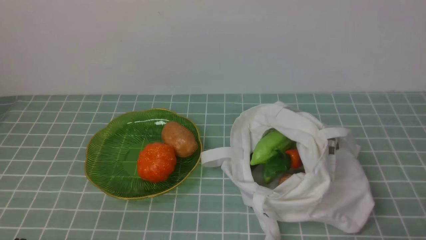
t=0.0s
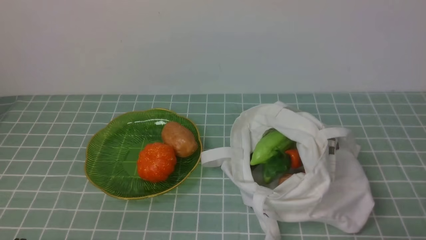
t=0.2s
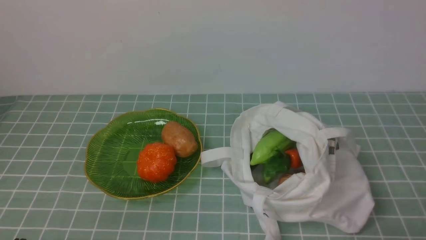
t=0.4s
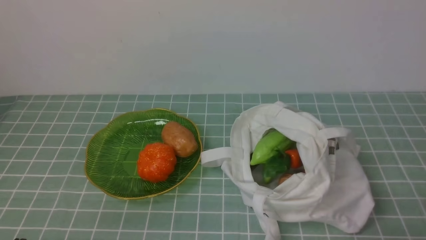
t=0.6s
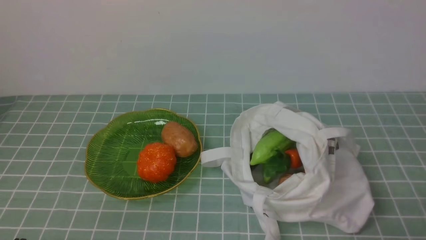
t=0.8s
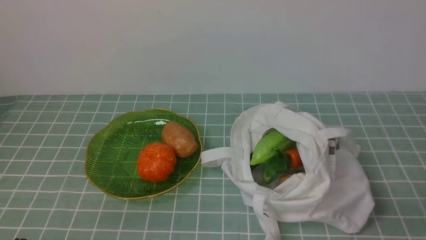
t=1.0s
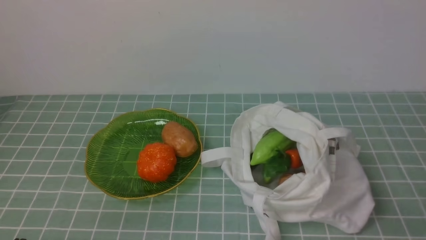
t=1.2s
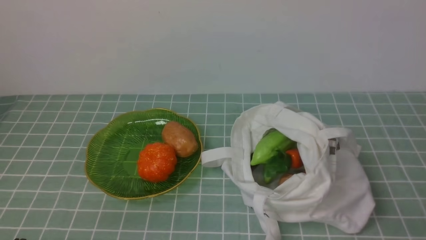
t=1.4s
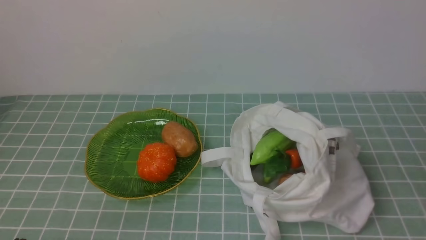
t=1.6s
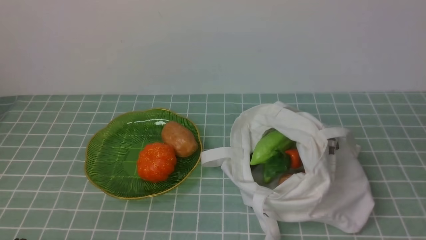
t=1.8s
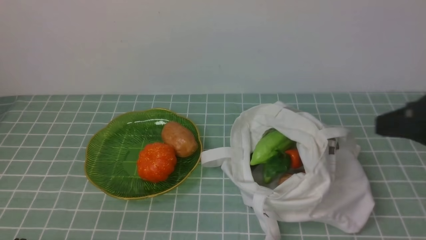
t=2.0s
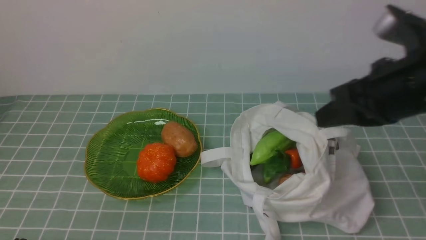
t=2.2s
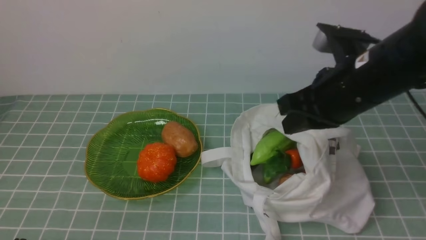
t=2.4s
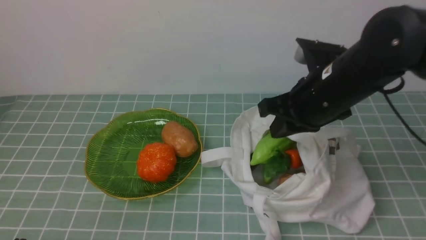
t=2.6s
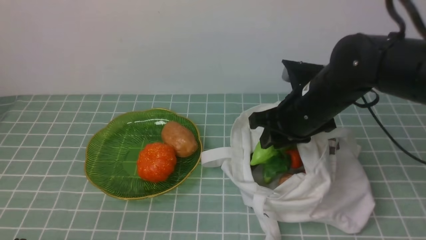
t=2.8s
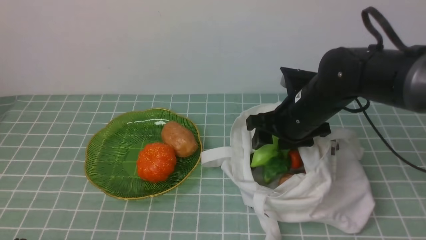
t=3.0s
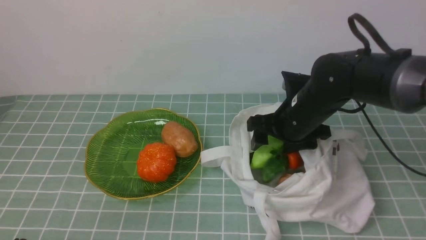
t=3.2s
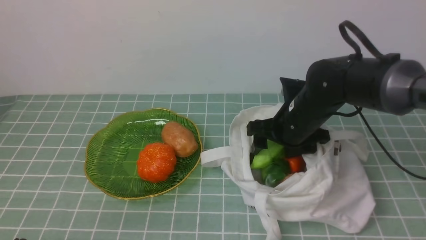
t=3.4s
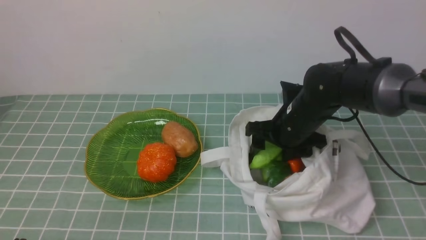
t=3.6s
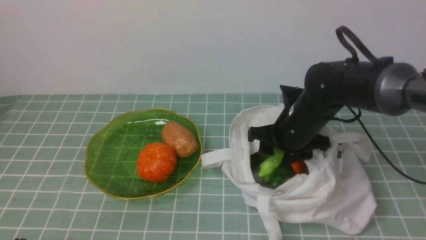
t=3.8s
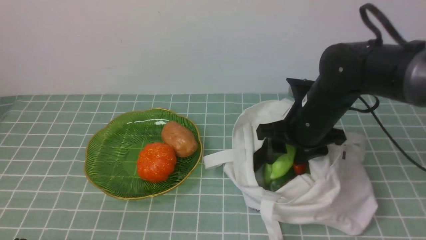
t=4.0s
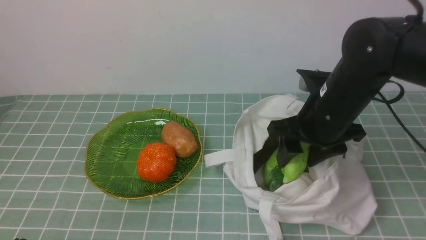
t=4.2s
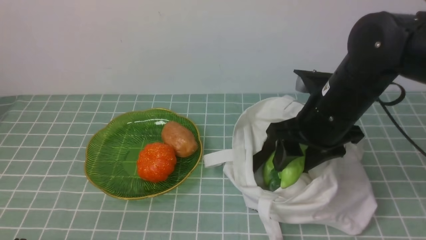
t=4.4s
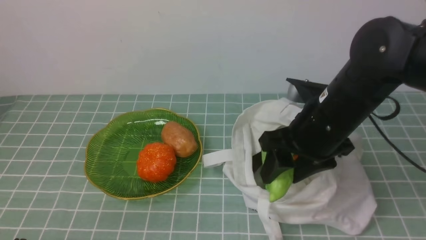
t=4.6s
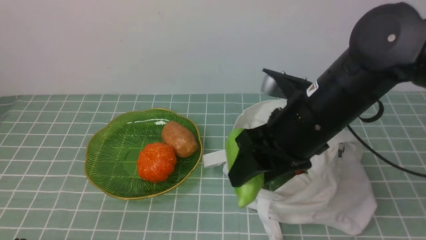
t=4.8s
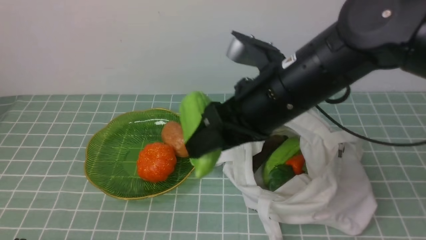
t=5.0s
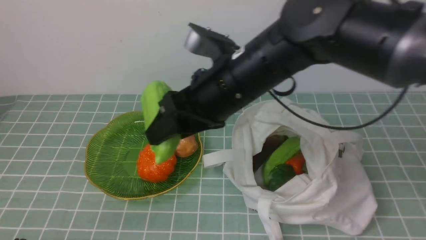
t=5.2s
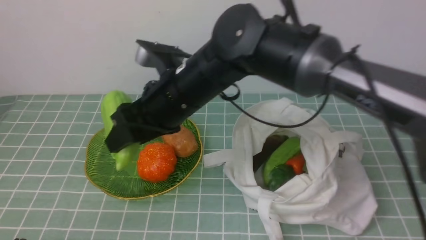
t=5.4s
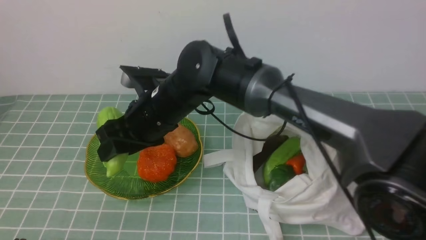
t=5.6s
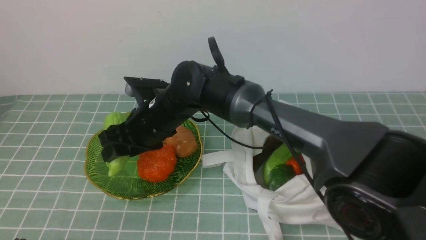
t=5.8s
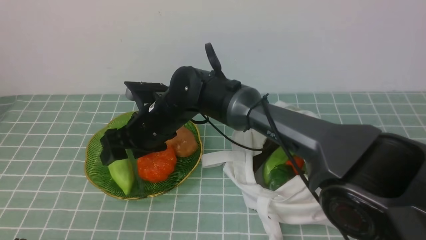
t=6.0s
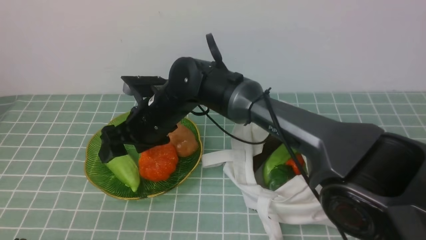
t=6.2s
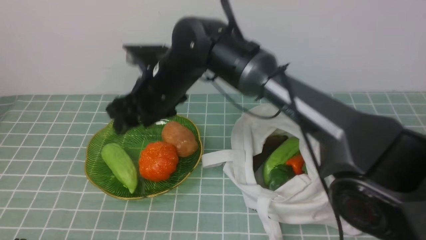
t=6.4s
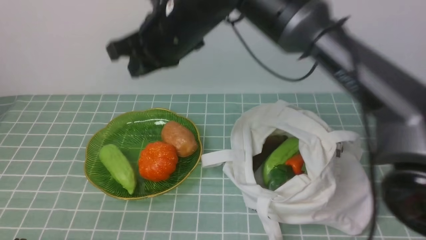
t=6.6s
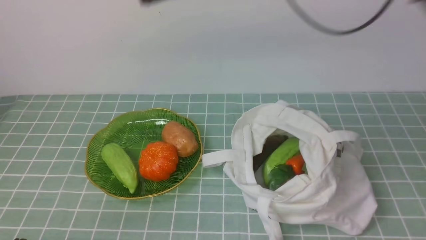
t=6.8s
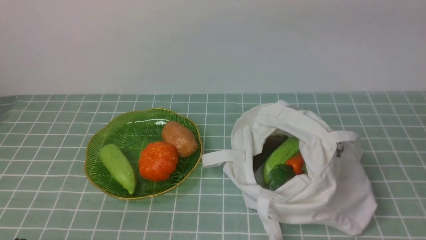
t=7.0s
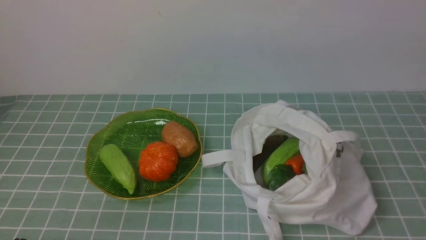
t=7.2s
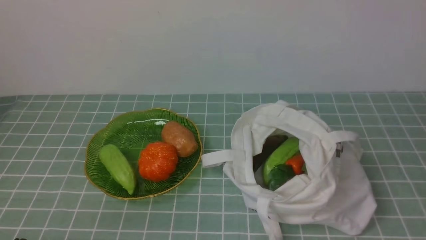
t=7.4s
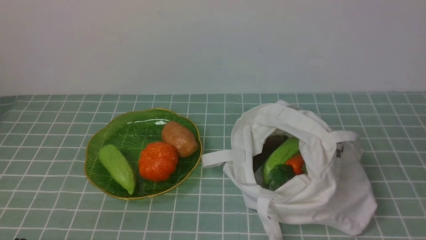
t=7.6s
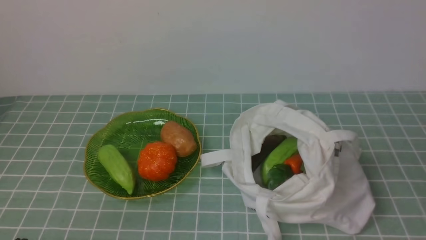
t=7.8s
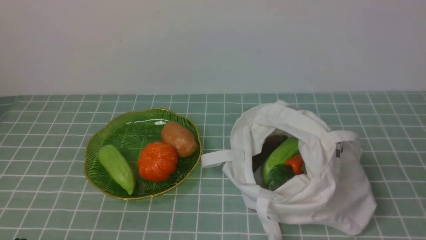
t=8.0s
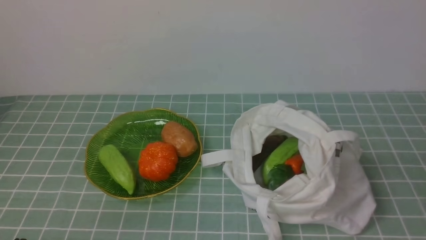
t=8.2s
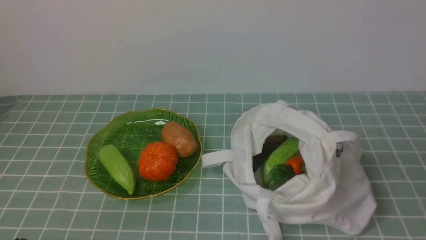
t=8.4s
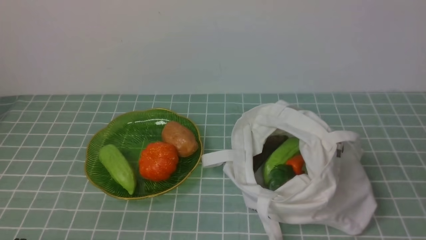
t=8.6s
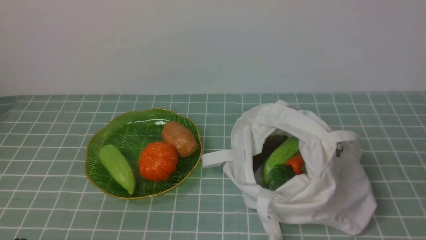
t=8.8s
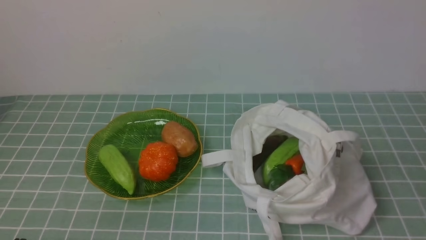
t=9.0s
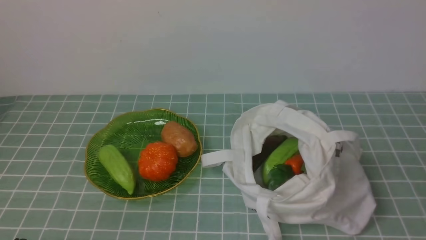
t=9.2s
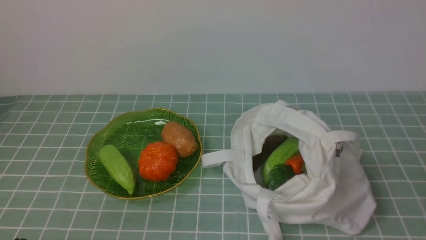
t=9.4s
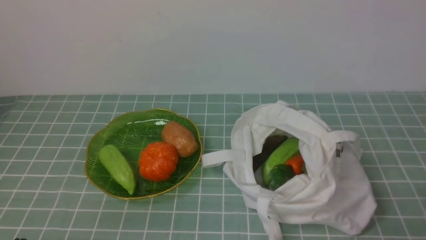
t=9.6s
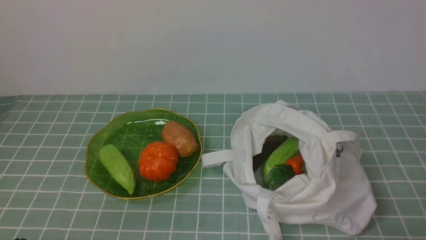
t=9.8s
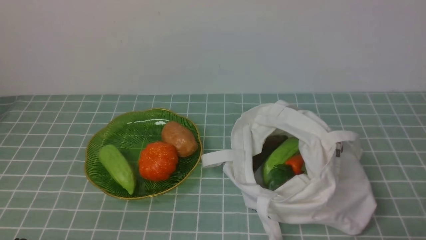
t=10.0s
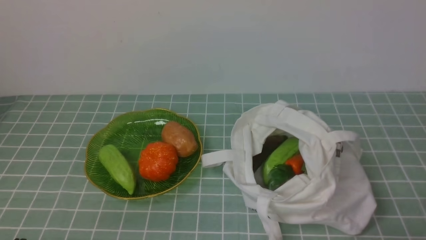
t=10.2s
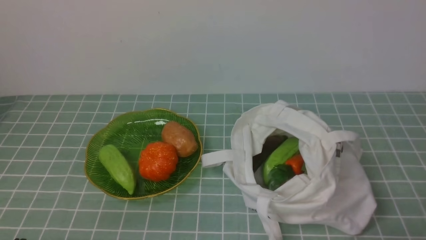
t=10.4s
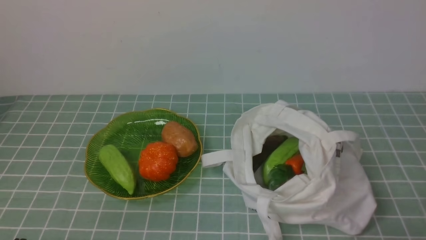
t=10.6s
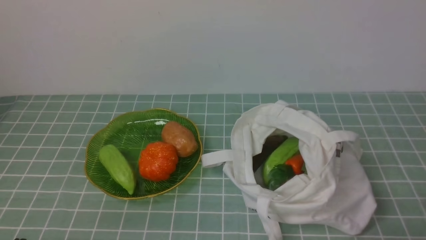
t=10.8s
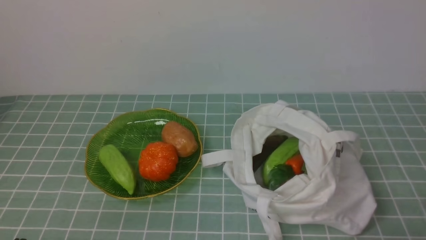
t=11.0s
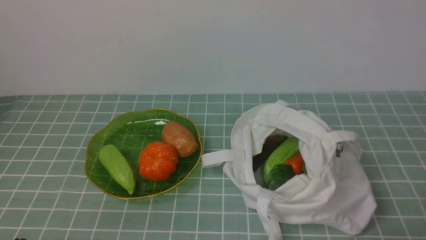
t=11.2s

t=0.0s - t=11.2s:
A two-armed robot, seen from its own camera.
Task of the whole recording: take vegetables from cloth bag on blue coffee tablecloth place on plate.
Step, t=0.0s - t=3.8s: Grasp the bitter melon with right gripper.
Step, t=4.0s - t=6.2s: Place the bitter melon on the plate with right gripper.
t=1.6s - t=3.2s: The right gripper is displaced forward and to the left by about 35 cm, and opens up.
t=3.2s - t=4.8s: The right gripper travels upward and backward by about 15 cm.
t=4.8s - t=6.4s: The right gripper moves to the left and forward, approximately 20 cm.
t=6.4s - t=8.0s: The right gripper goes about 50 cm to the right and backward, and closes up.

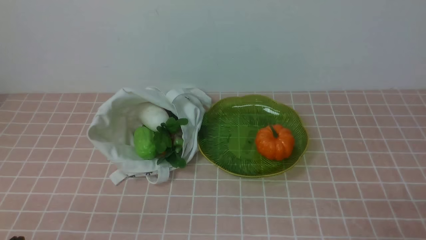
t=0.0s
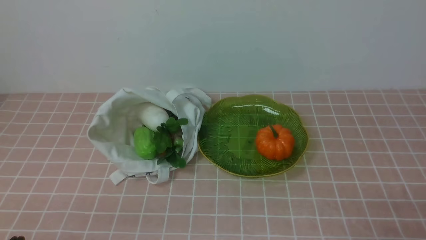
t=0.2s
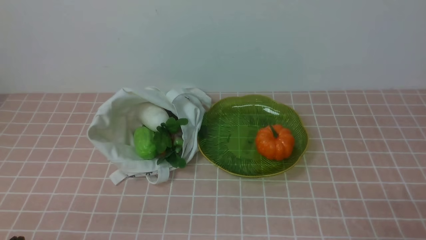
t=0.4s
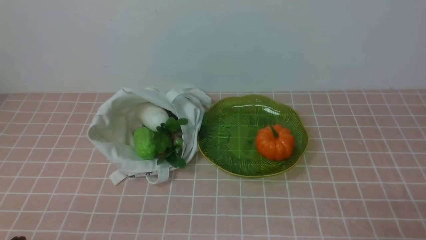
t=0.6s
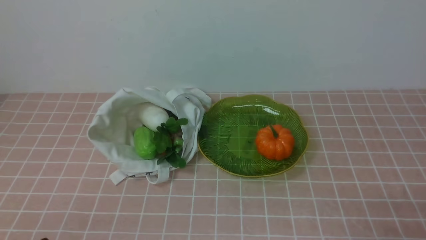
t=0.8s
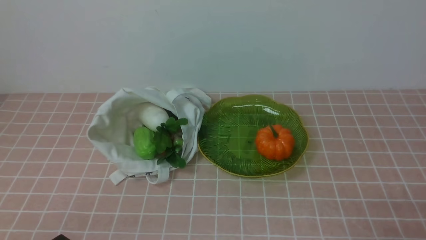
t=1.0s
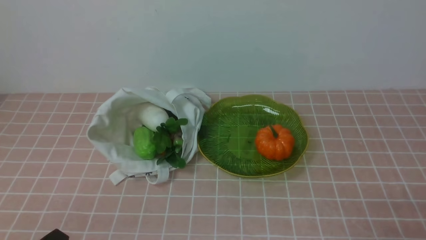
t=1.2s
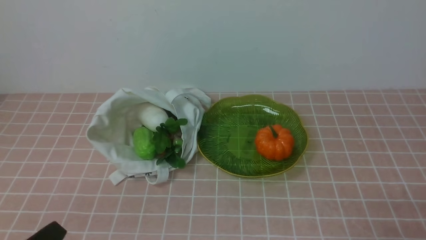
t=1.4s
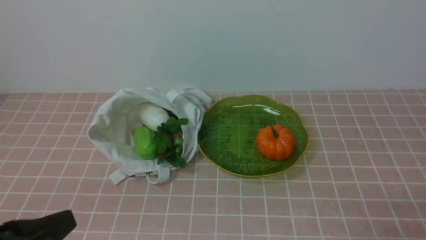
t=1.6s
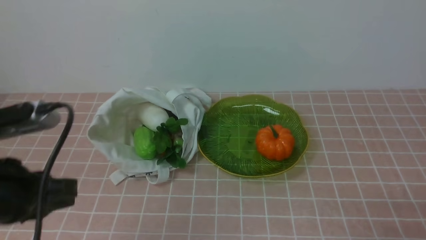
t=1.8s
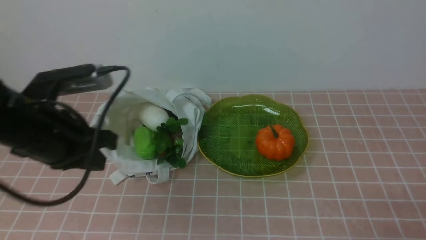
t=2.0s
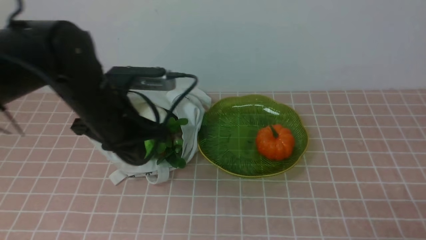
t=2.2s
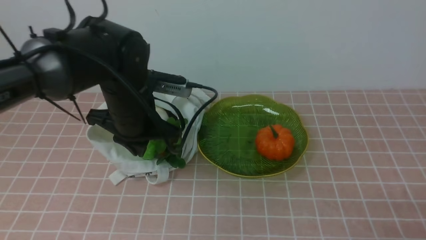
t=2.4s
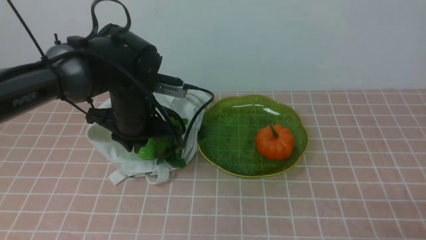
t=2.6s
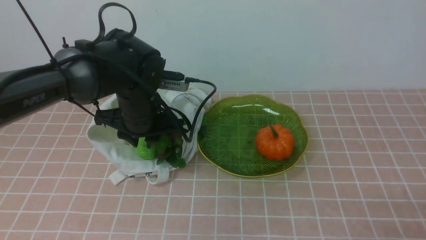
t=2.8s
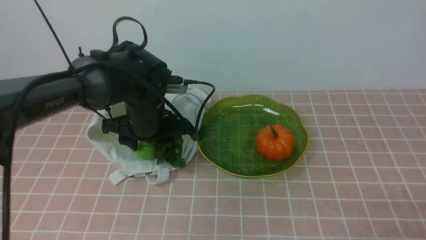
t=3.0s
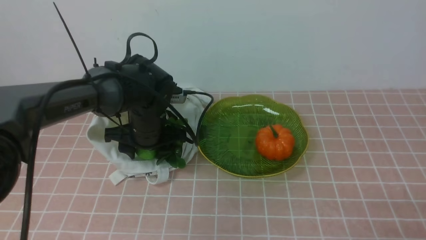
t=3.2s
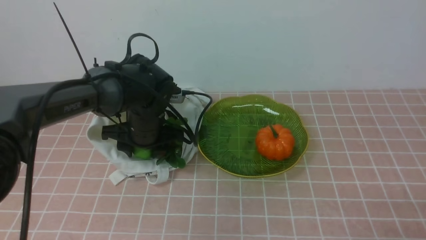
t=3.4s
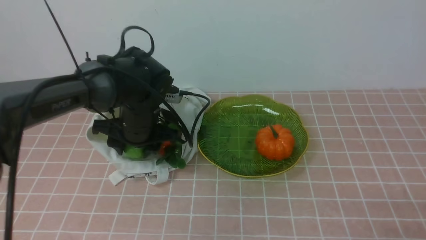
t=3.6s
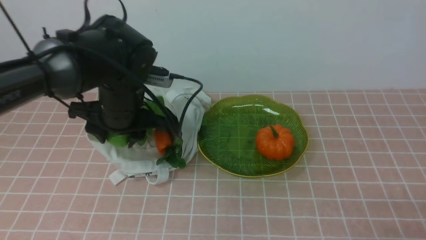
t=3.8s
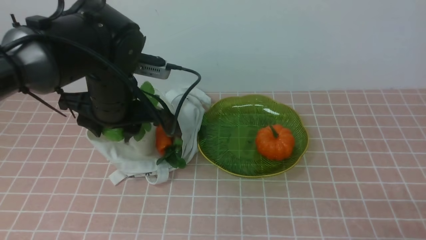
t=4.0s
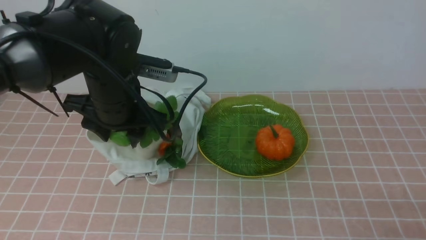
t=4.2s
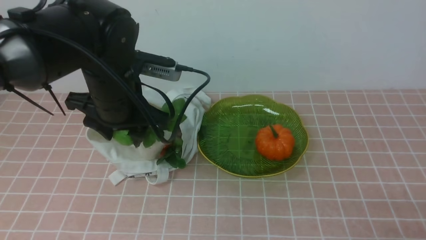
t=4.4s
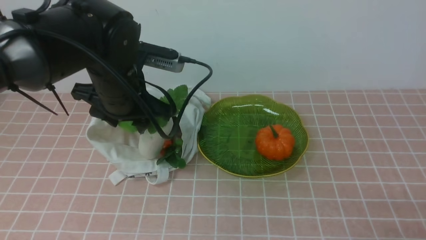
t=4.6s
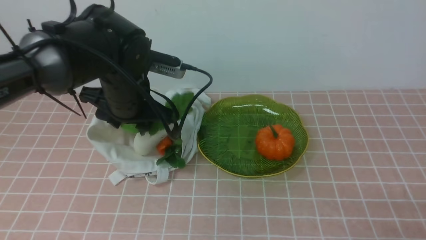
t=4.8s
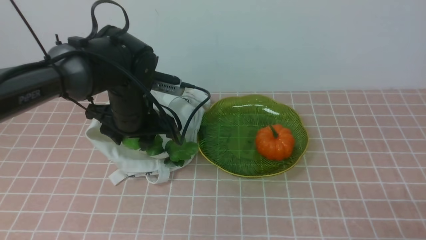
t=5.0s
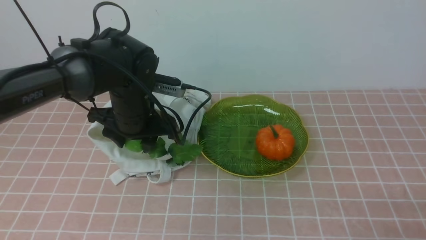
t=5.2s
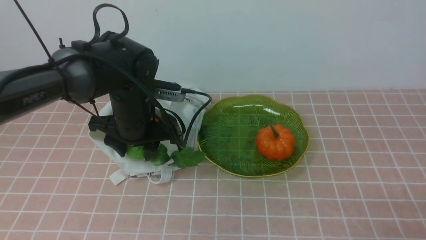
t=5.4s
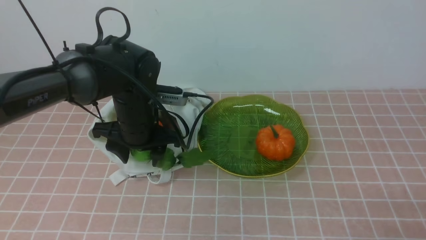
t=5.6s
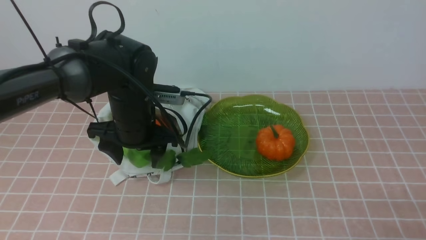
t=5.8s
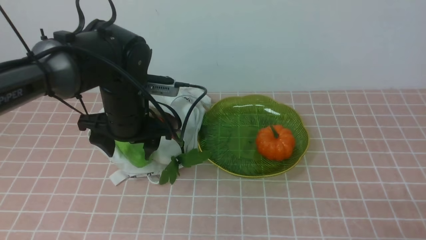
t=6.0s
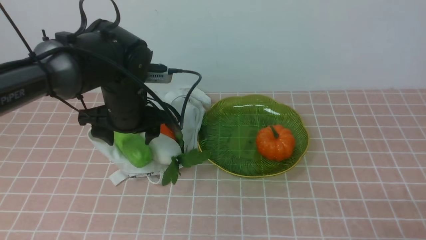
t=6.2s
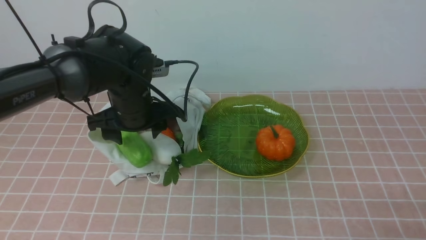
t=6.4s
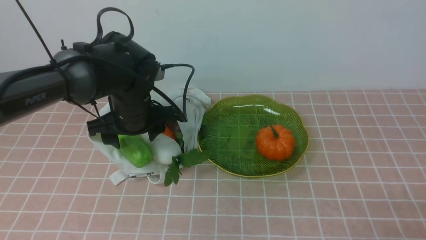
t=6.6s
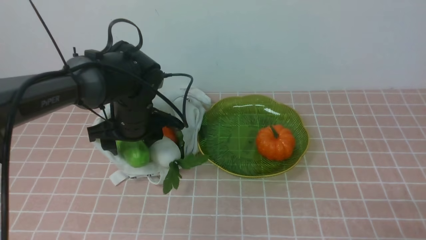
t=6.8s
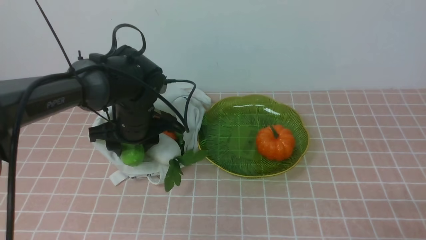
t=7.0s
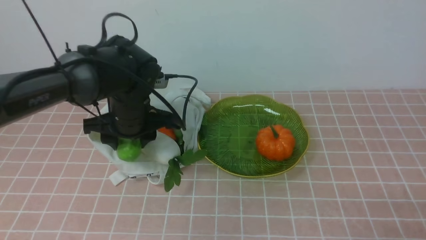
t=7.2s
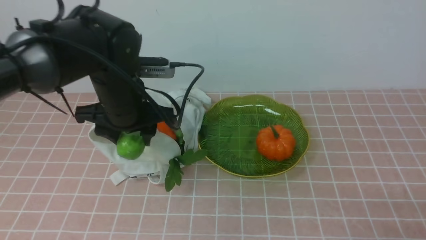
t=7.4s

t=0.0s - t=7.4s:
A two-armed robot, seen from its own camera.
Task of the whole recording: take vegetables from bag on pink coffee tablecloth place on plate.
Step, t=0.0s - t=6.8s: Grasp the bitter melon with left gripper.
t=1.4s - t=3.0s: The left gripper goes some 30 cm forward, and opens its fingers.
t=3.0s - t=4.4s: The left gripper goes about 10 cm upward.
t=4.4s - t=6.0s: The left gripper goes about 5 cm downward.
